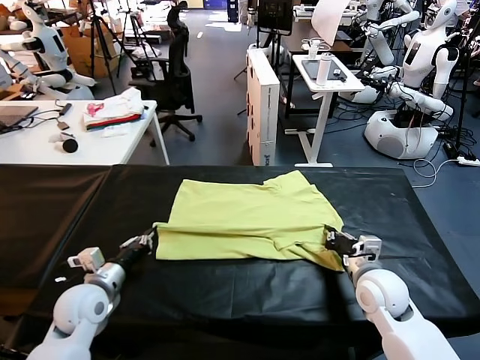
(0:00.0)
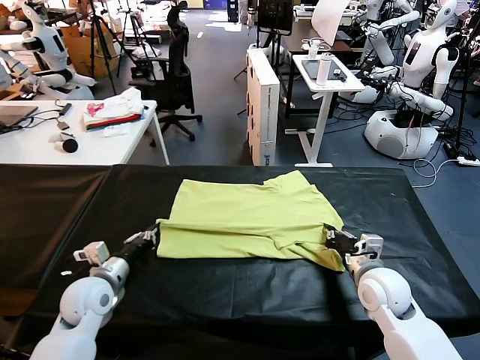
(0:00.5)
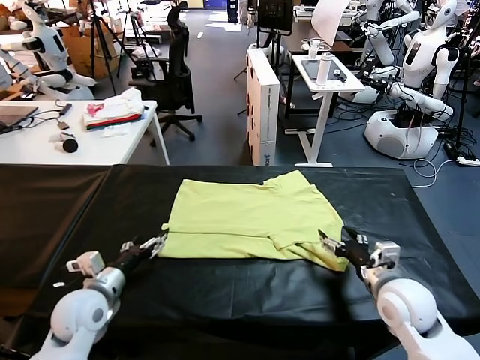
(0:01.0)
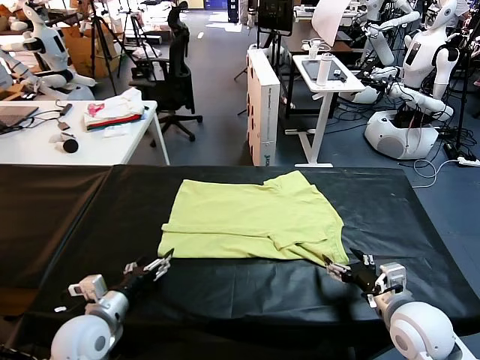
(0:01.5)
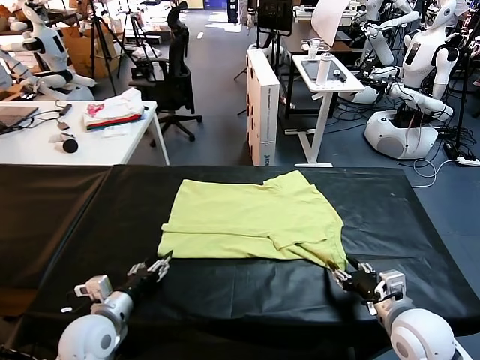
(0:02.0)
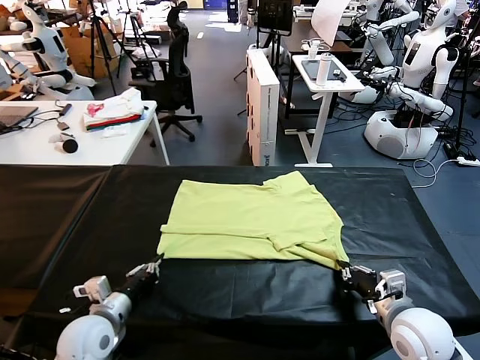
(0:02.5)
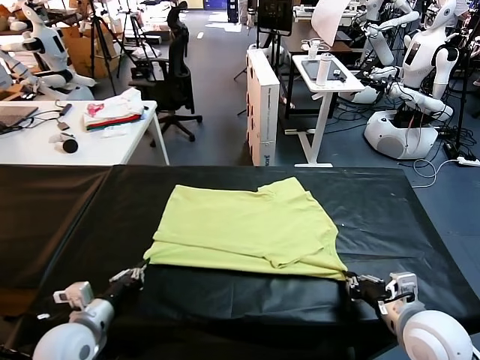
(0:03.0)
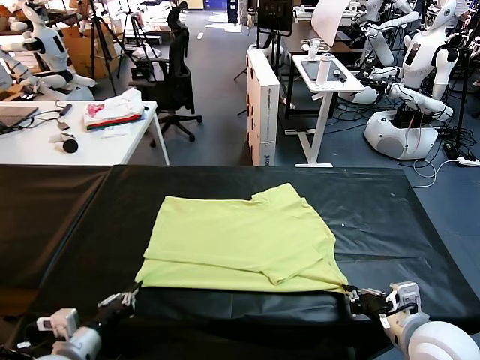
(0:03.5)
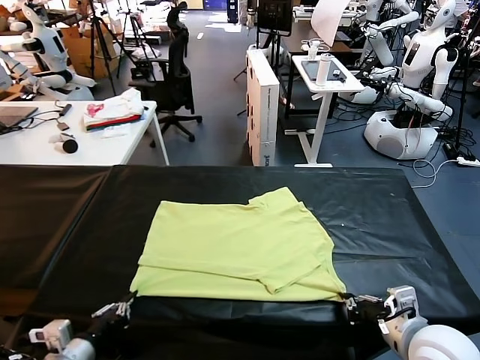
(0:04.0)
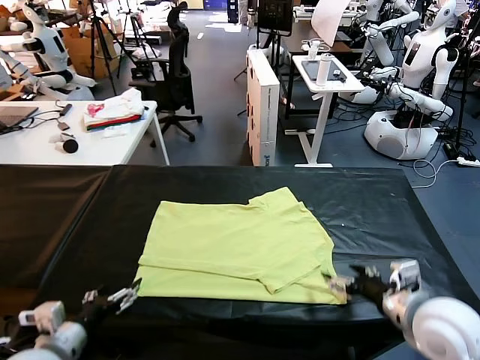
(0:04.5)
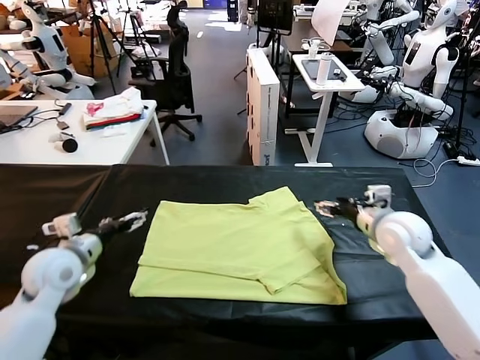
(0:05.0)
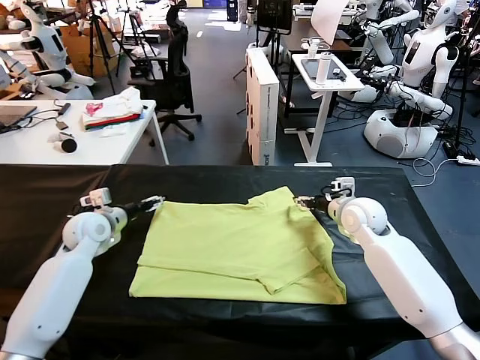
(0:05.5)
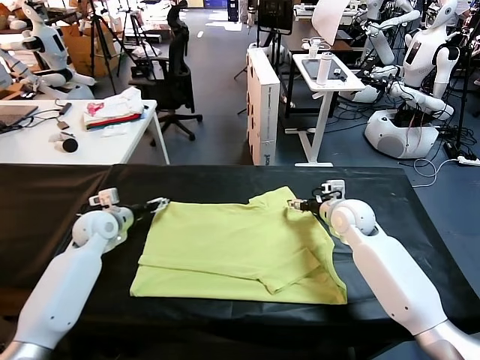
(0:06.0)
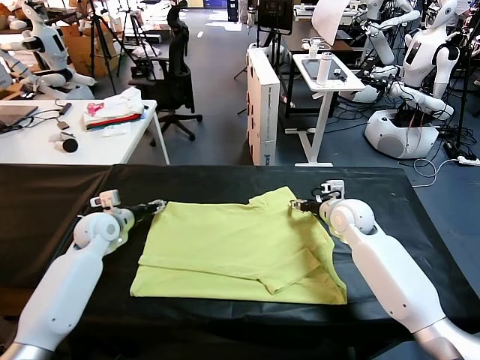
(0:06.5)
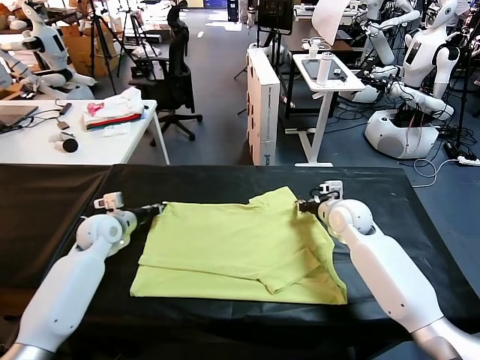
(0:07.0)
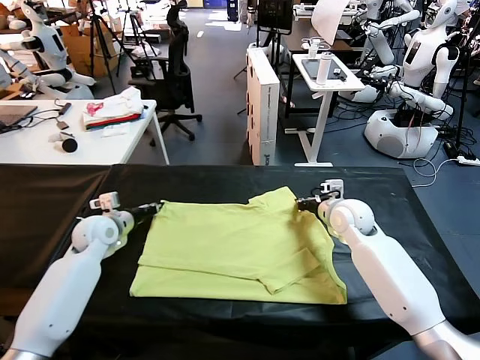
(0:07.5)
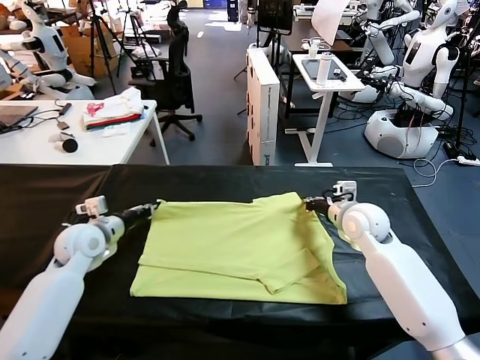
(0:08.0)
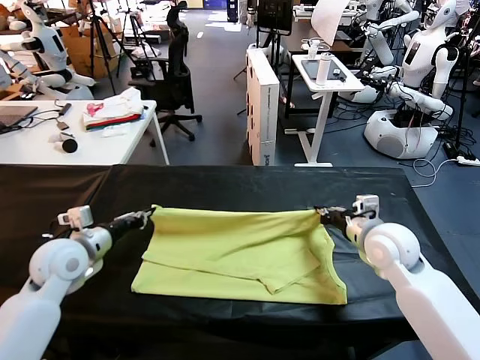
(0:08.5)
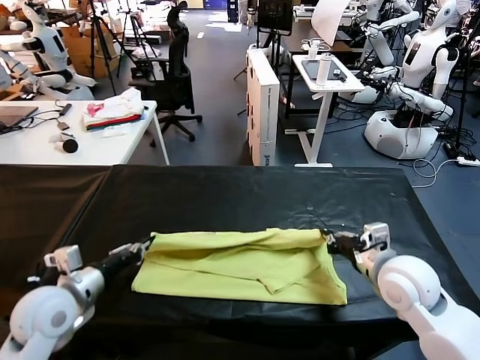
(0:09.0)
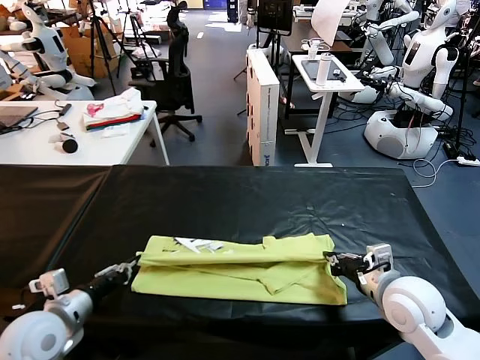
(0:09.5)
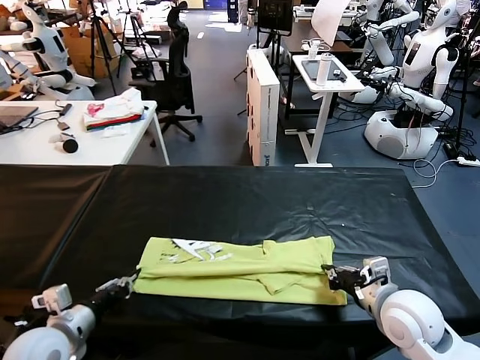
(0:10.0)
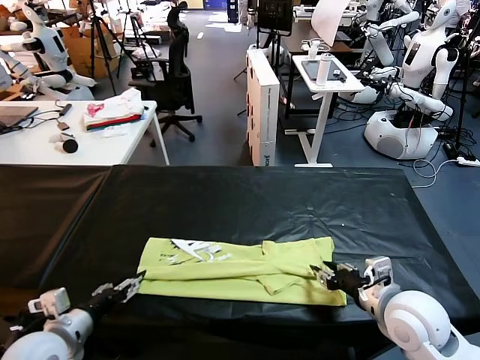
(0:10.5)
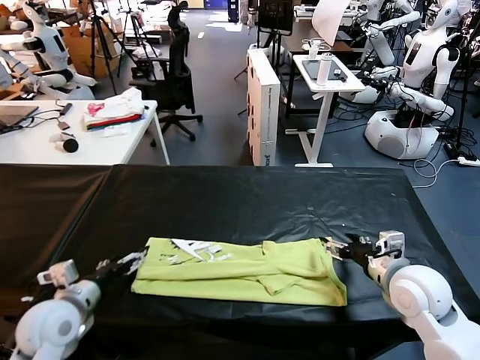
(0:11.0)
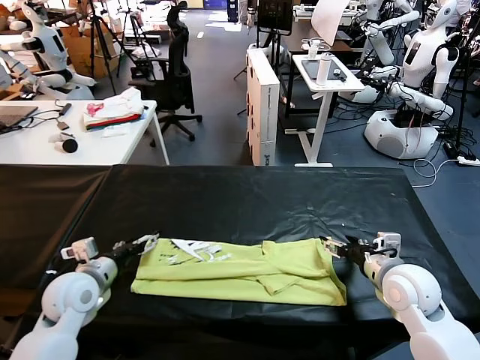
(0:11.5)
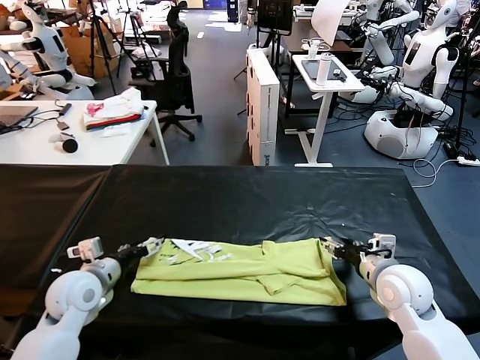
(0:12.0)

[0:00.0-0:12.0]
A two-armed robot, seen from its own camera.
Task of the whole recording: fold and organize the clothes.
Step, 0:01.0 to 0:04.0: Drag the clothes downward with both gripper.
Step, 0:04.5 to 0:07.5: use both grippers simultaneously to clamp the upper edge of the clothing fabric.
Step, 0:08.0 to 0:10.5: use both grippers to drag the upper edge of the fabric backward and fold it over the lower edge.
0:00.0 to 0:02.0: Both grippers travel together backward, roughly 10 cm. The right gripper opens, then closes again. The left gripper opens.
0:02.0 to 0:04.0: The right gripper moves upward, some 10 cm, and opens up; the left gripper heads backward, covering roughly 10 cm, and closes and opens again.
0:04.0 to 0:06.0: Both grippers move forward, roughly 30 cm. The left gripper opens its fingers.
0:06.0 to 0:08.0: Both grippers move backward, some 5 cm. The right gripper closes its fingers; the left gripper closes up.
0:08.0 to 0:10.0: Both grippers travel together backward, roughly 20 cm.
0:10.0 to 0:12.0: The left gripper is displaced forward by approximately 10 cm, and opens up; the right gripper is displaced forward by about 5 cm, and opens.

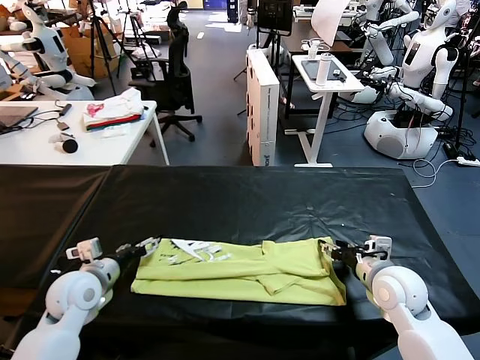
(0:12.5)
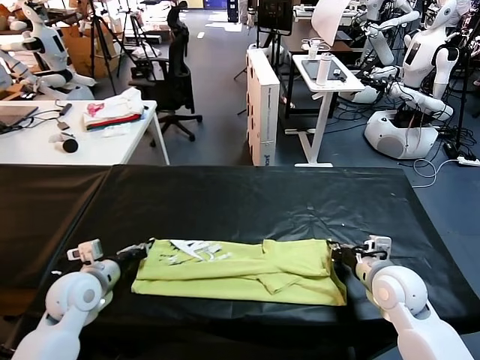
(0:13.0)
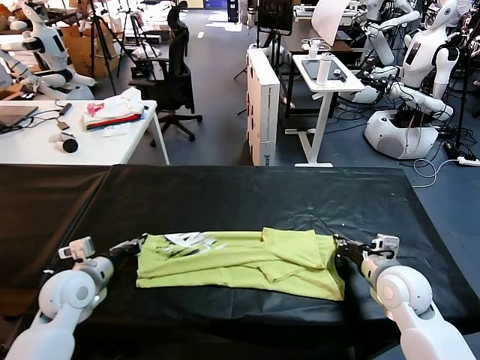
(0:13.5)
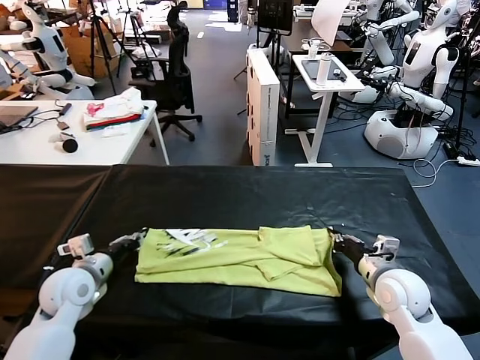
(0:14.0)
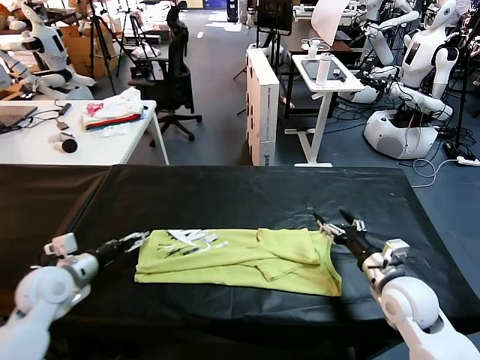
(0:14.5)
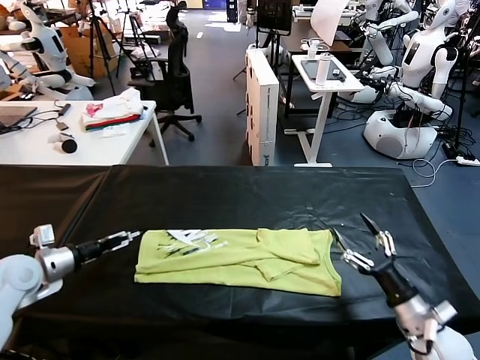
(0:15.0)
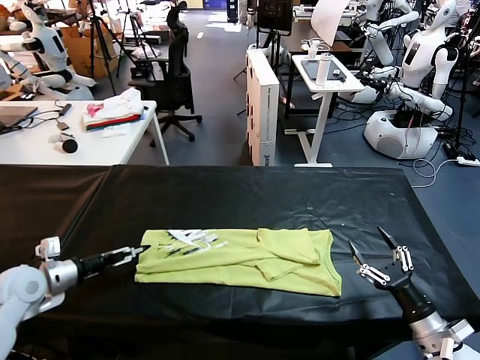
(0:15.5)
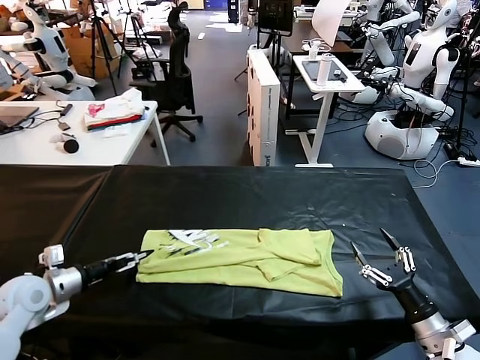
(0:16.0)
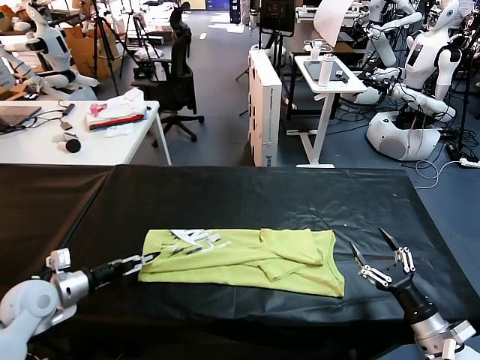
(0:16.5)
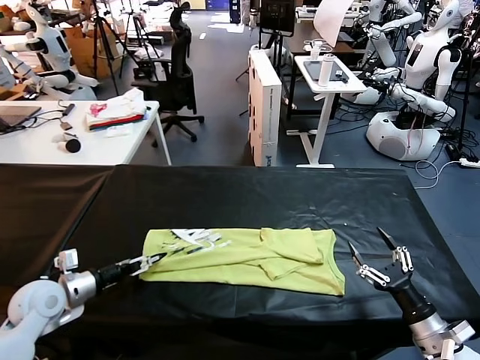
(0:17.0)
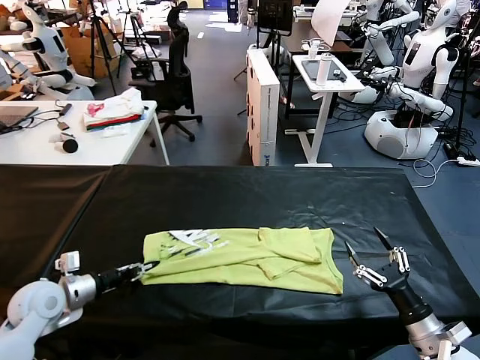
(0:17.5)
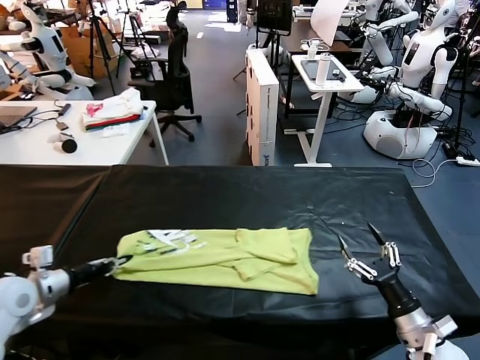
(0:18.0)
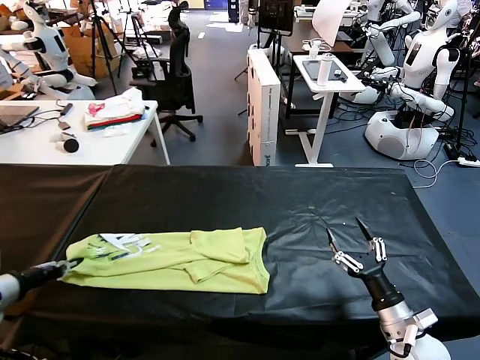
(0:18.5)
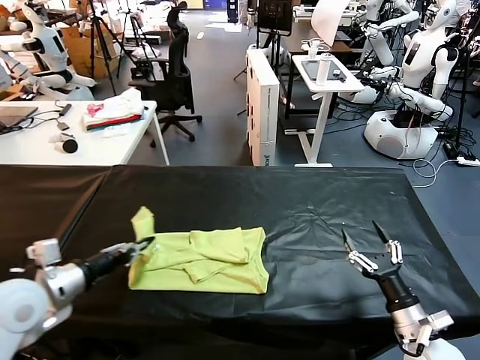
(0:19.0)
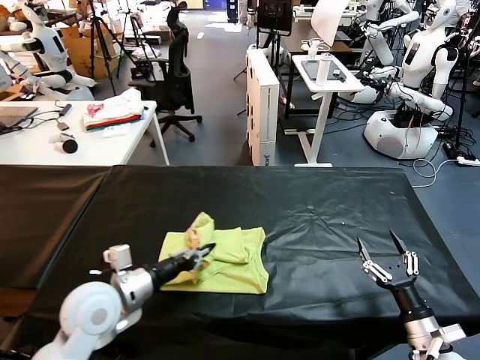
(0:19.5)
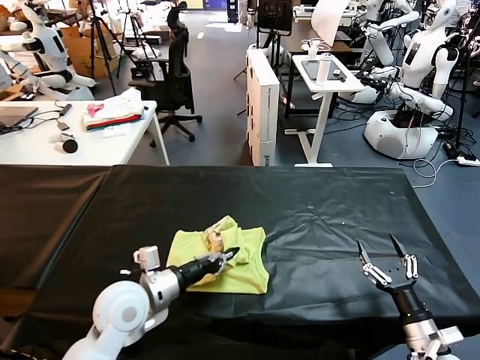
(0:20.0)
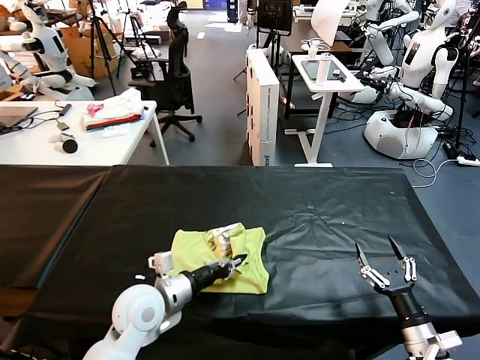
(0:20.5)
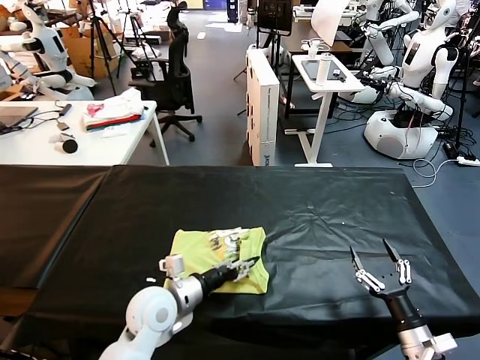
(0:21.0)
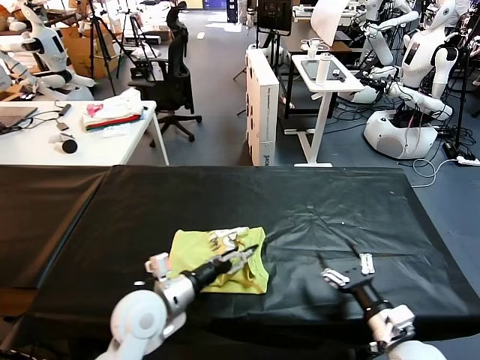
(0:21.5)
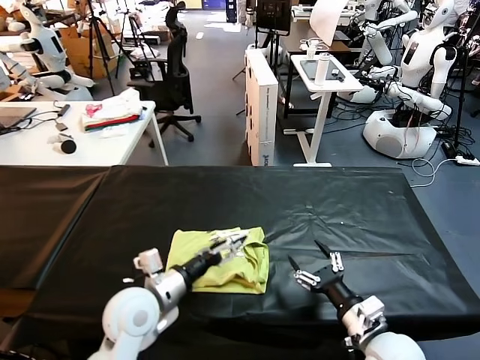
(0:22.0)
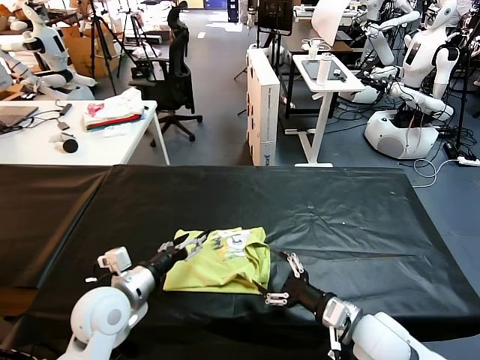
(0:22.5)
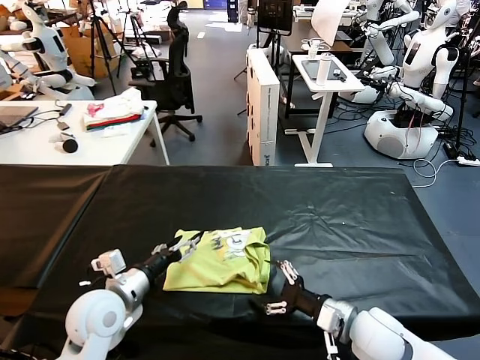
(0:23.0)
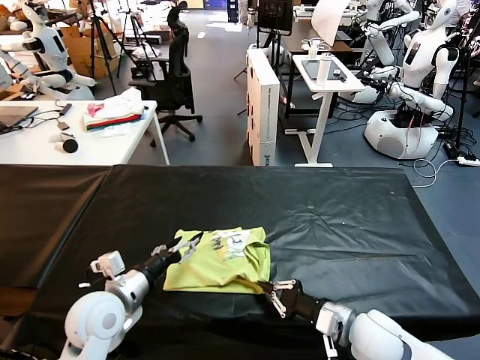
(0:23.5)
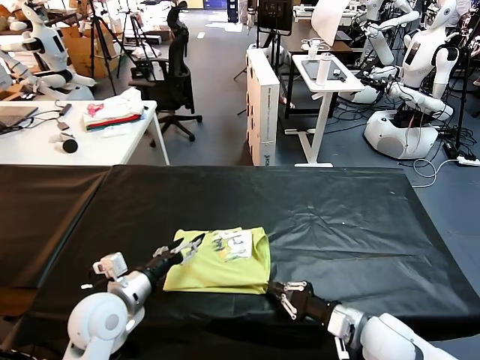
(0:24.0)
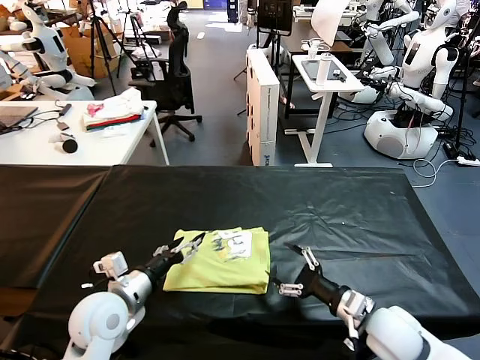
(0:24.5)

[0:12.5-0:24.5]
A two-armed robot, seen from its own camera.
Task of the whole recording: fold and organize the clothes.
Step, 0:12.5 to 0:17.5: use the left gripper to clamp the left edge of the fabric.
Step, 0:18.0 to 0:21.5: use the left gripper to drag the left edge of the fabric to the left and folds it over the right edge.
0:12.5 to 0:14.5: The right gripper shifts by approximately 5 cm, and opens up, while the left gripper heads to the left, covering approximately 5 cm, and closes, then reopens.
0:14.5 to 0:16.5: The right gripper travels backward, to the right and downward by about 10 cm.
0:16.5 to 0:18.5: The right gripper shifts roughly 5 cm to the left. Meanwhile the left gripper heads upward and to the left, covering approximately 10 cm, and closes up.
0:18.5 to 0:20.5: The right gripper changes place by approximately 5 cm. The left gripper goes about 30 cm to the right.
0:20.5 to 0:22.5: The right gripper shifts roughly 15 cm to the left, forward and upward, while the left gripper heads to the left, covering roughly 5 cm, and opens its fingers.
0:22.5 to 0:24.5: The right gripper closes, then reopens.

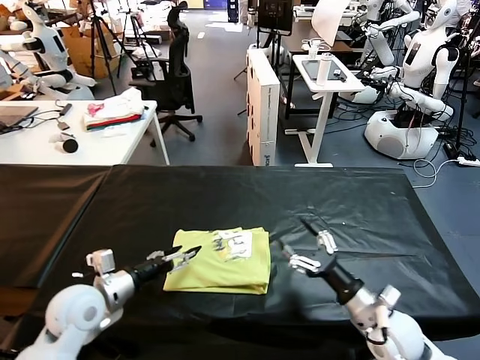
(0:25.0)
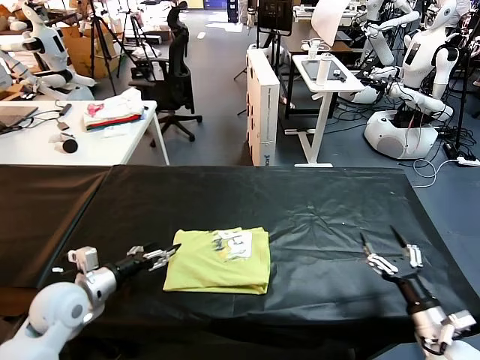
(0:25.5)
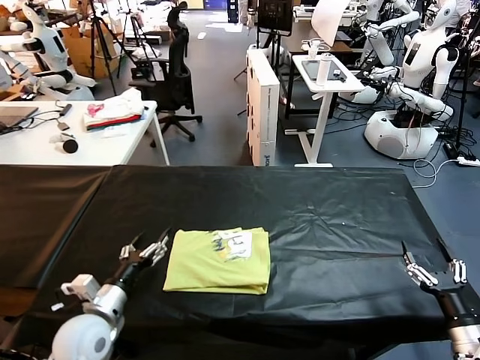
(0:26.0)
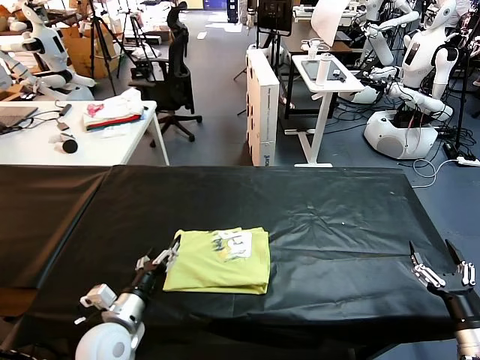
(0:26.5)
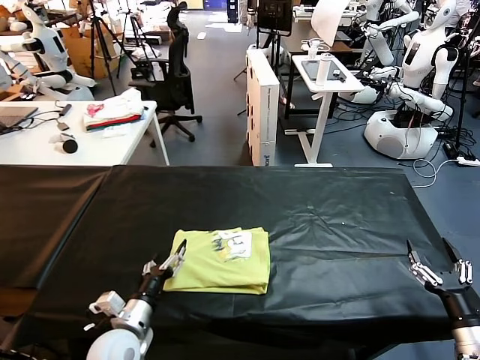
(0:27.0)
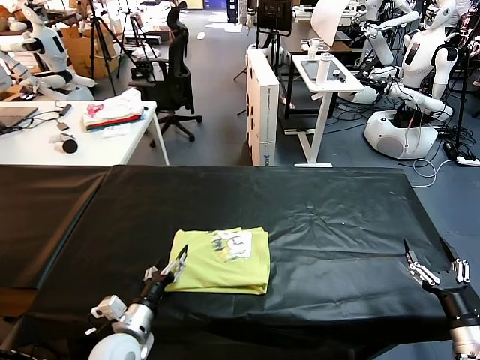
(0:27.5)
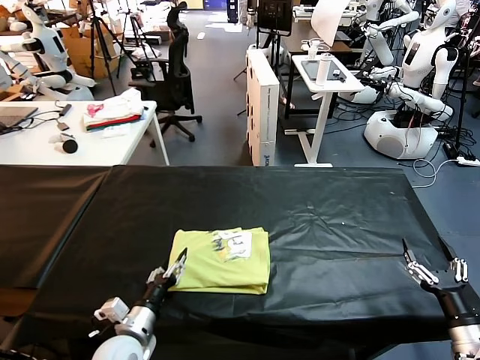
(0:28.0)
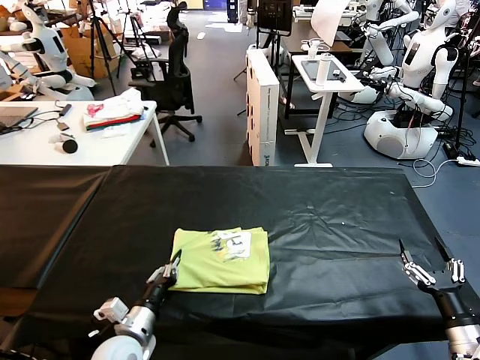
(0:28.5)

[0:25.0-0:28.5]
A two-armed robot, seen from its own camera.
Task of the whole recording: fold and organize the clothes.
0:25.0 to 0:27.0: The right gripper goes some 15 cm to the right and backward; the left gripper is displaced downward, to the right and backward by approximately 10 cm.
0:27.0 to 0:28.5: The left gripper closes up.
